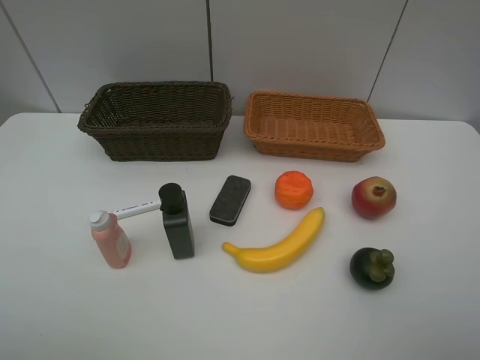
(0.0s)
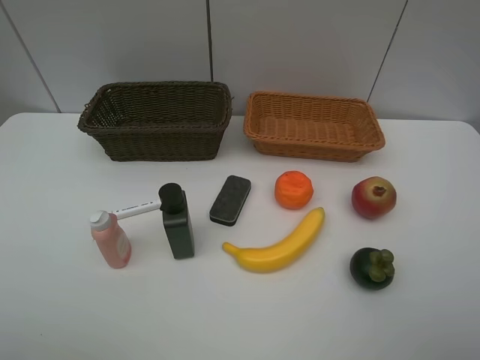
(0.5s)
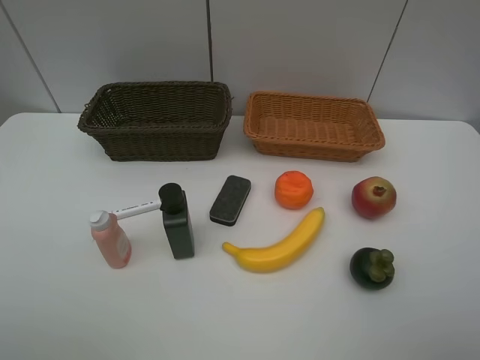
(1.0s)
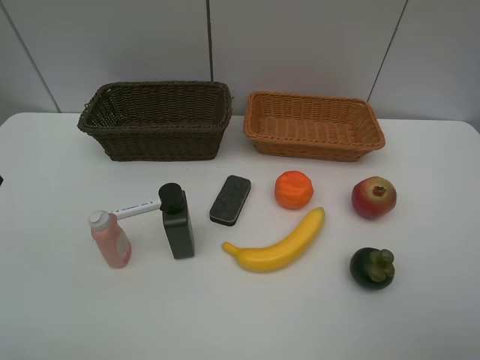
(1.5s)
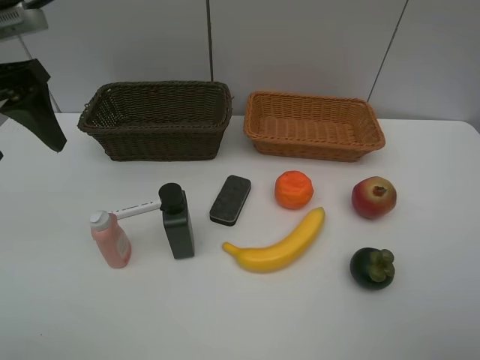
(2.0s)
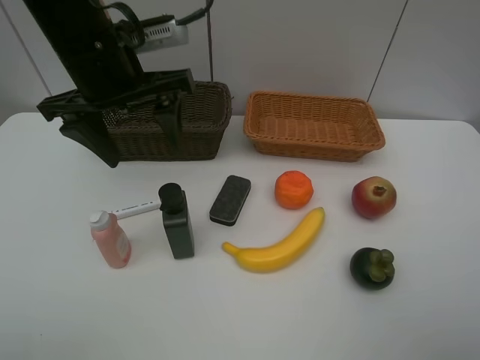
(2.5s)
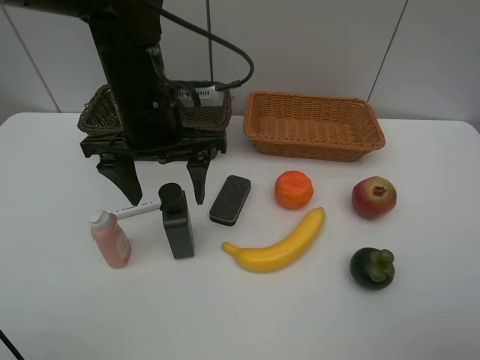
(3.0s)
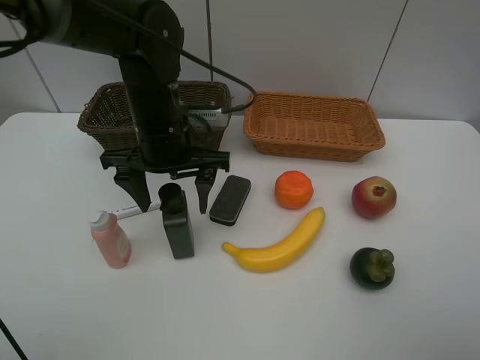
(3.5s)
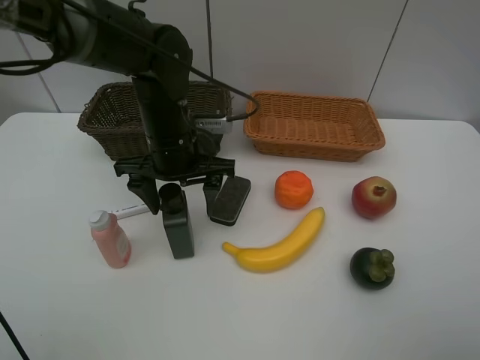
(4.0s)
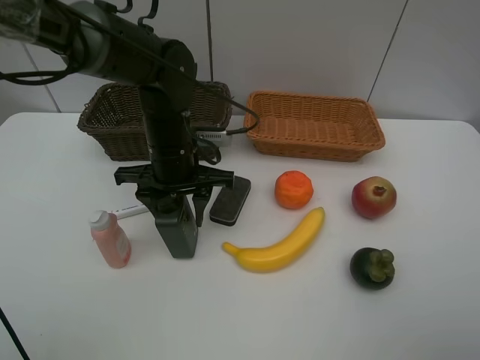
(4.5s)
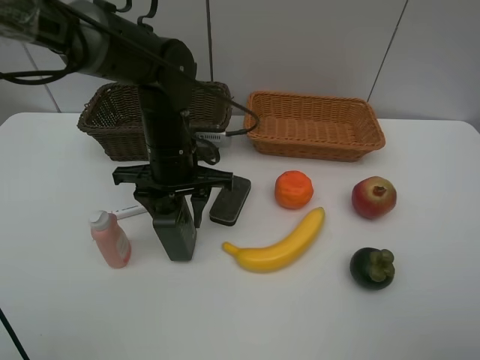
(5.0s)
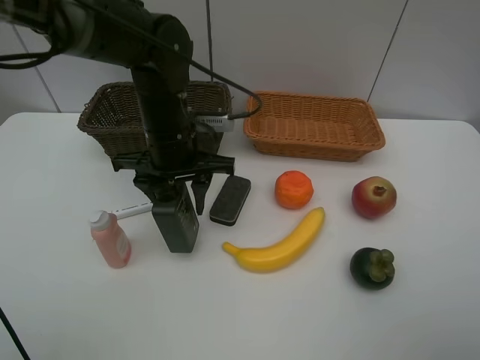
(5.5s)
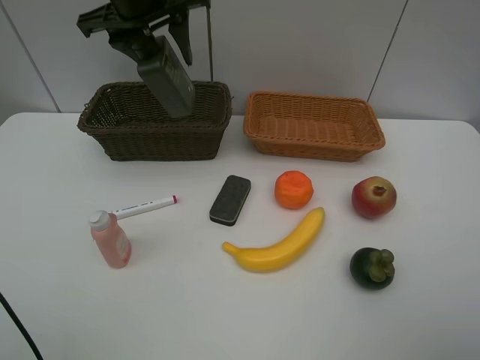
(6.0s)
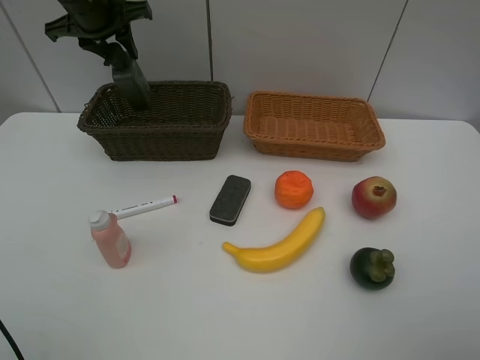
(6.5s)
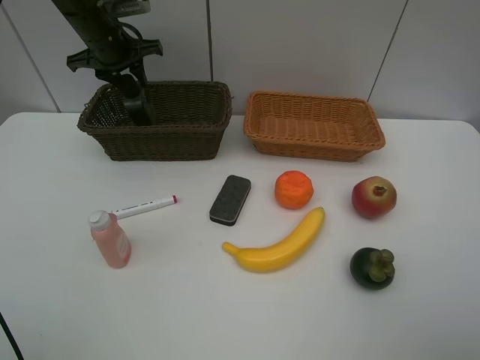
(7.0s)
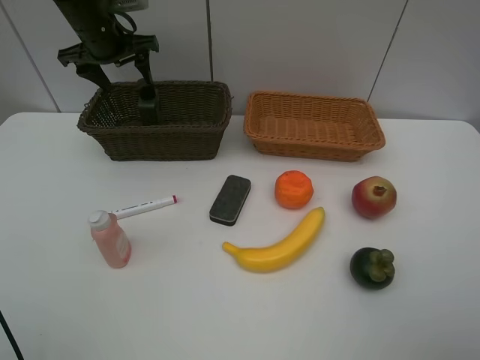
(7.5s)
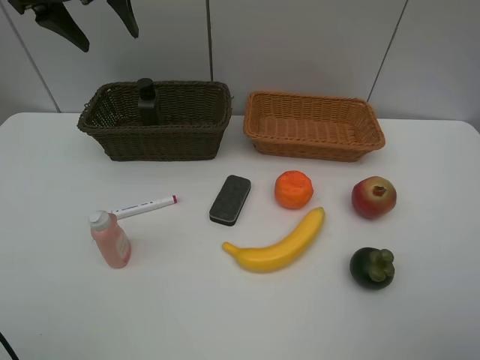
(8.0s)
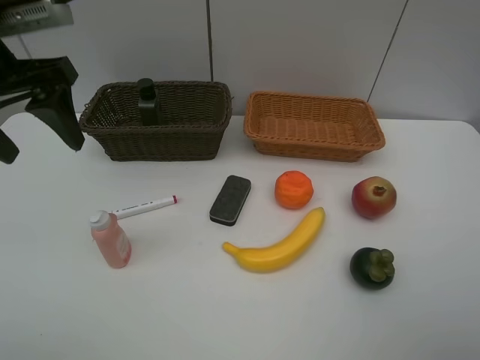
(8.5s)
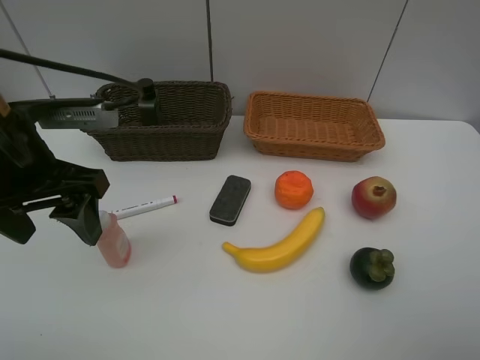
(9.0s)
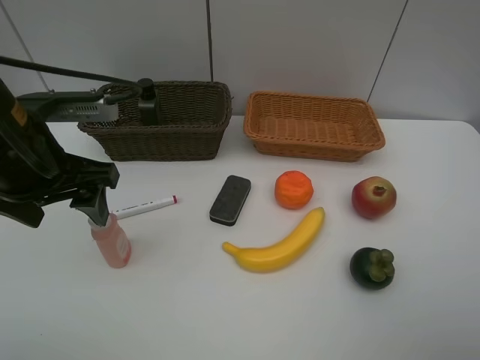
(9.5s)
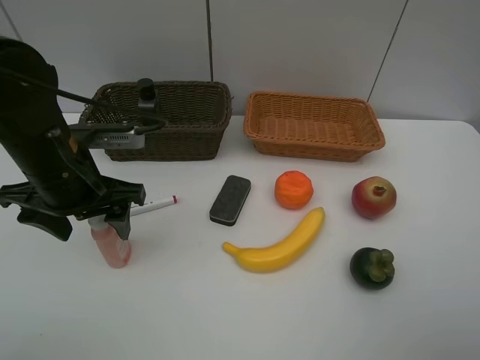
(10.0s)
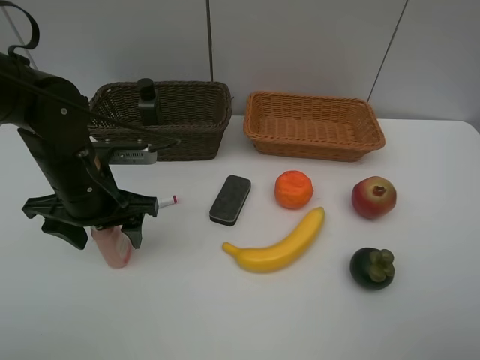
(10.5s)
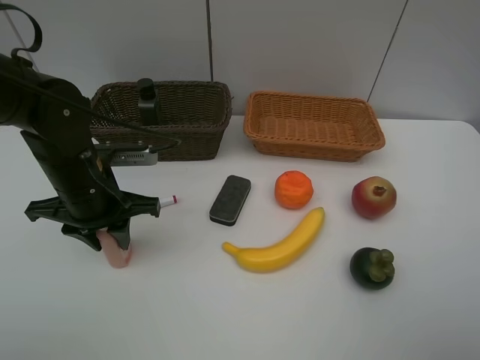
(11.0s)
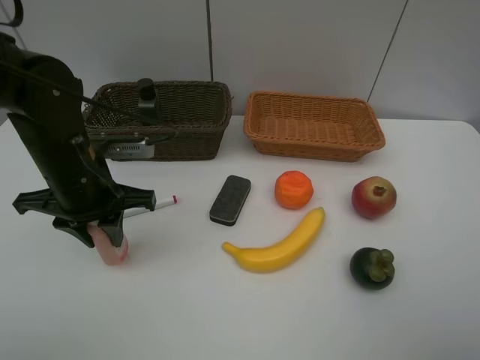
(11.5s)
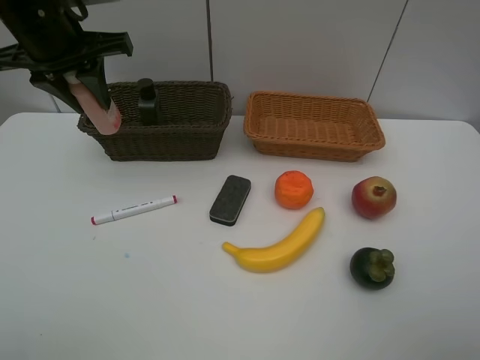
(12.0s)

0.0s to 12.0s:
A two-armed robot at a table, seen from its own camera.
Task of the whole recording: Place multiple objects separately in different baskets.
Step, 0.0s to 5.5s: Pick up the hard facial cleanser with left gripper.
Step, 6.0s to 7.5s: Place the hard facial cleanser in the dark basket with left gripper.
Step, 8.0s to 11.5s: Pick up the laundry detergent with left gripper.
0.0s to 2.0s: The left gripper shifts about 30 cm forward.
2.0s to 4.0s: The left gripper goes about 25 cm to the right and downward.
4.0s to 6.0s: The left gripper goes about 20 cm upward and forward.
6.0s to 8.0s: The left gripper heads to the left, covering some 10 cm, and reaches roughly 10 cm downward, then returns.
8.0s to 10.0s: The left gripper is displaced backward and downward by approximately 25 cm.
10.0s to 12.0s: The left gripper is displaced upward and forward by about 15 cm, and closes up.

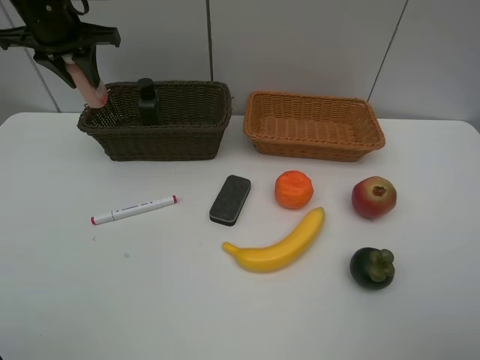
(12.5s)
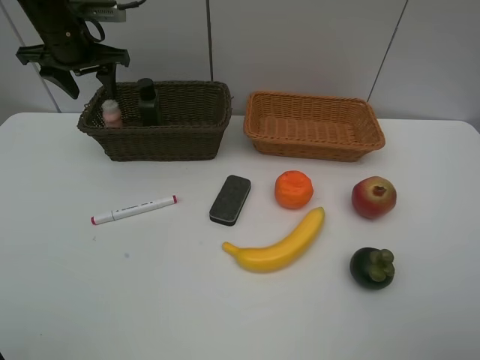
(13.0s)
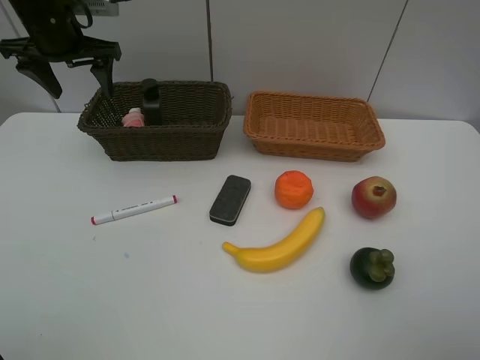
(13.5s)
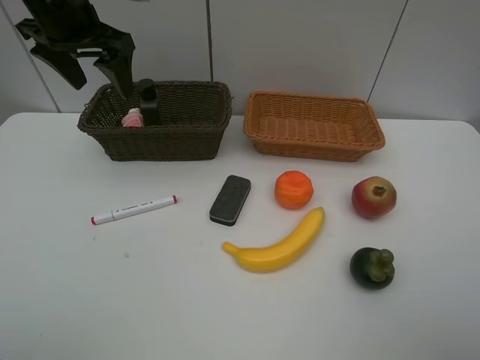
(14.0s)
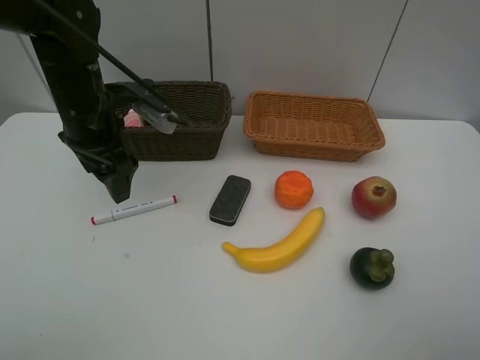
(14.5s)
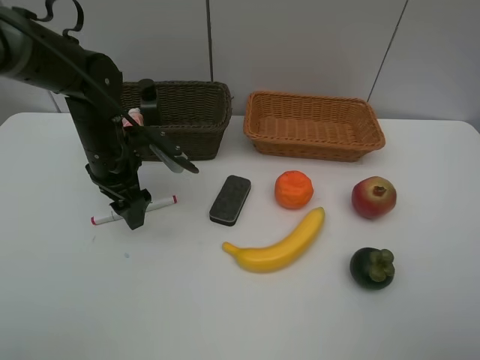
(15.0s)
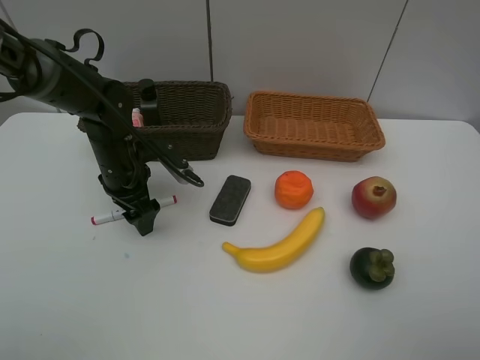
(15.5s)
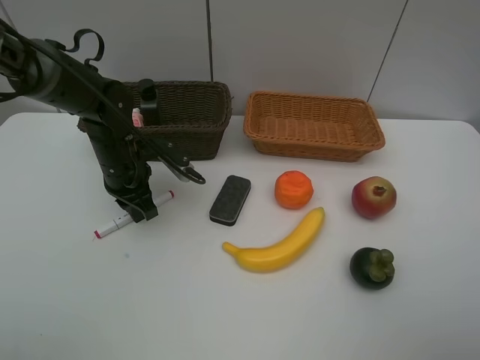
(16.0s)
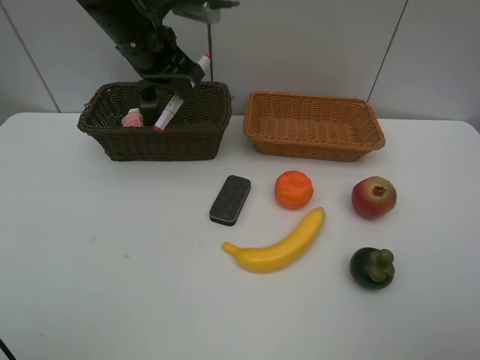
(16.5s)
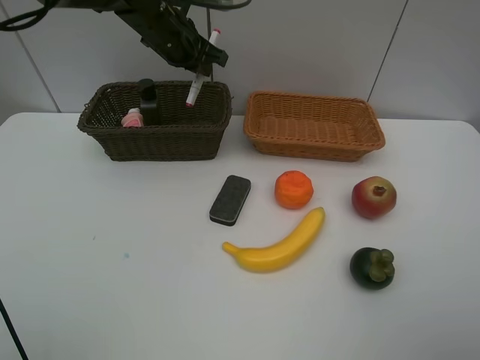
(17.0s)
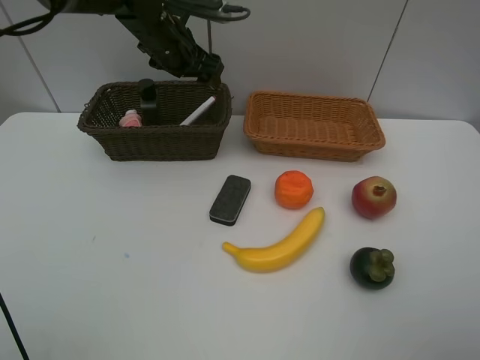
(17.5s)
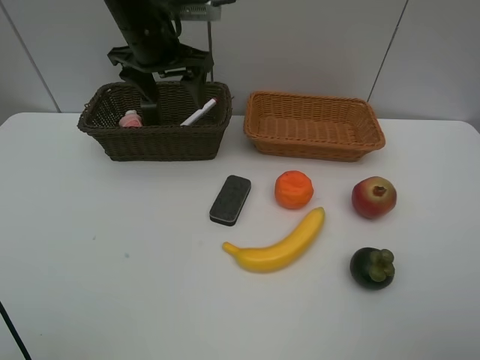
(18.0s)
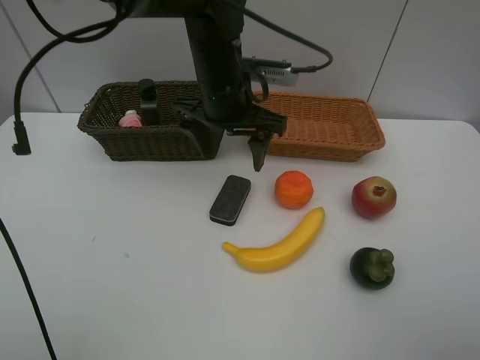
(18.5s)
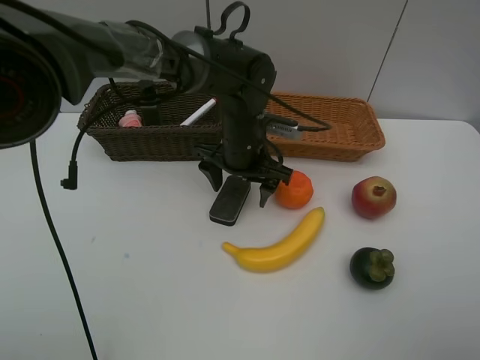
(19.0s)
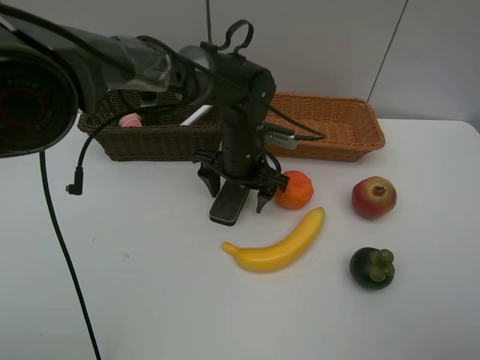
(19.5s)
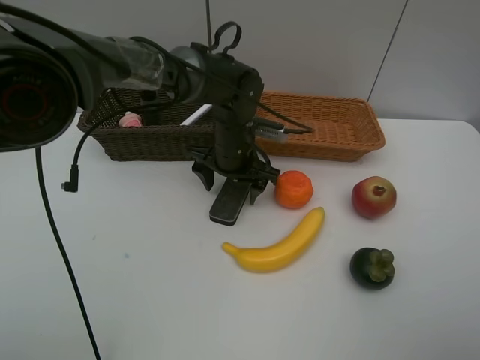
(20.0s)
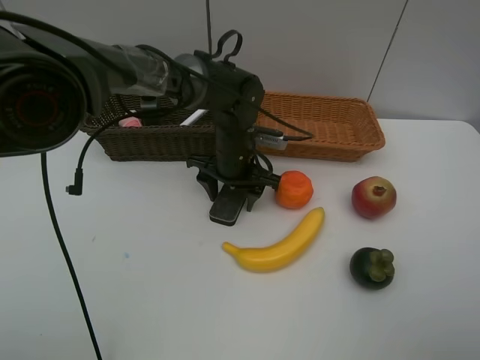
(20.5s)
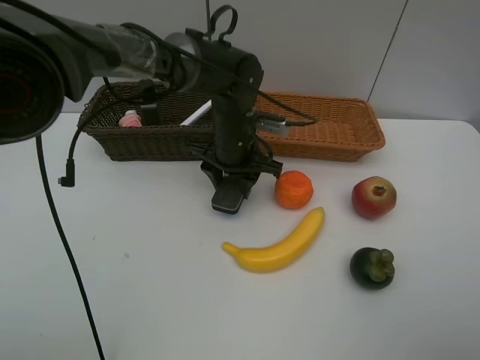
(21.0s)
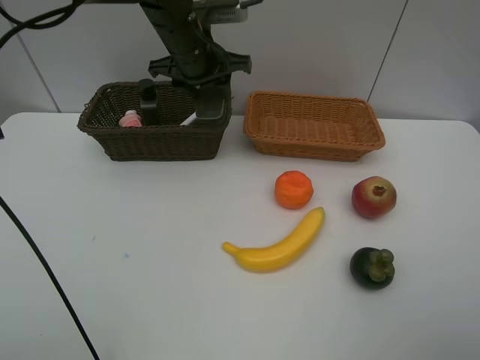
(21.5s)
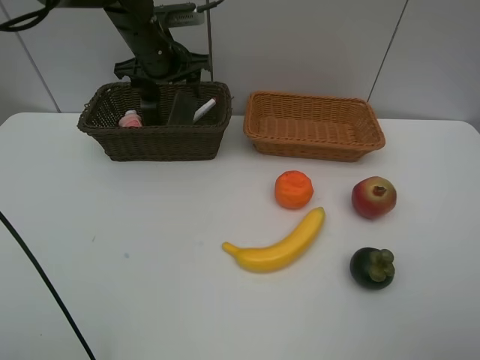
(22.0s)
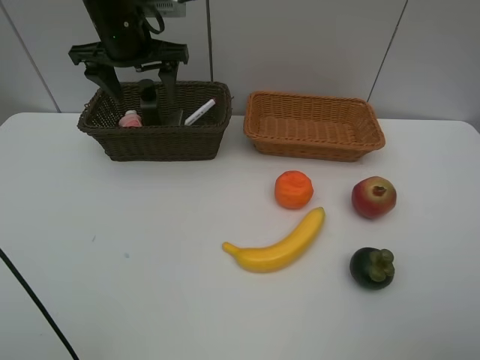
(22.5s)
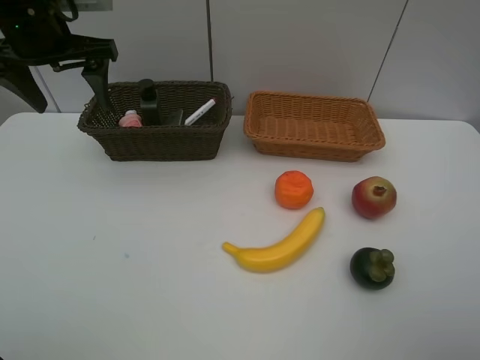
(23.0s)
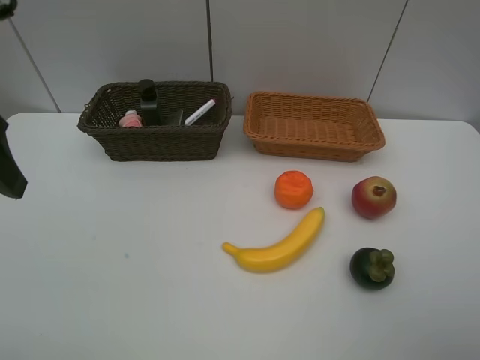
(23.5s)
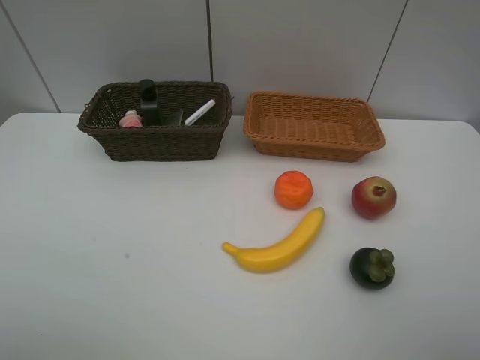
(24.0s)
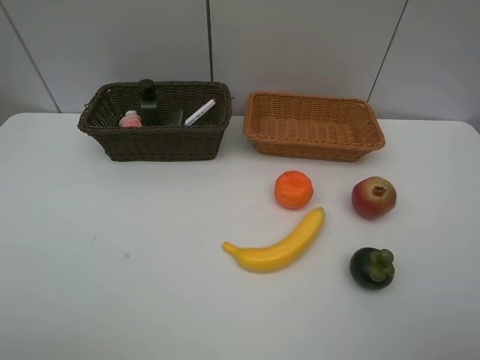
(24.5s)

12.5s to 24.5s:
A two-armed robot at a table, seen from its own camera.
Task of the whole recording: Place multiple objects separately in different baskets.
Step, 13.5s to 16.0s: Pick up the red marker with left gripper.
Step, 16.5s to 17.0s: Place the red marker in the dark basket with left gripper.
Step, 17.5s to 21.0s: Pick up blackboard eraser with left gripper.
Step, 21.5s to 22.0s: Place the blackboard eraser in the dark basket with left gripper.
12.5s to 14.5s: The left gripper is displaced backward, downward and to the right by roughly 15 cm, and opens its fingers.
14.5s to 16.5s: The left gripper moves forward, upward and to the right, approximately 10 cm, and closes.
16.5s to 18.5s: The left gripper heads to the right, backward and downward, covering roughly 15 cm, and opens.
18.5s to 20.5s: The left gripper heads downward, covering roughly 10 cm.
20.5s to 22.5s: The left gripper heads upward and to the left, covering some 25 cm.
22.5s to 24.5s: The left gripper heads backward, covering about 40 cm.

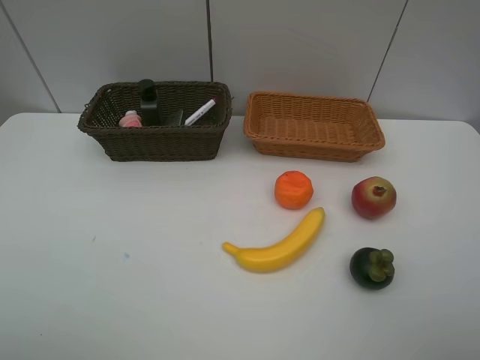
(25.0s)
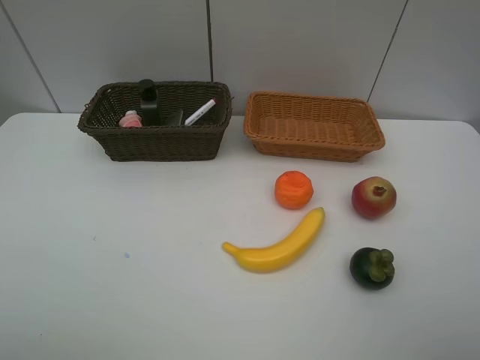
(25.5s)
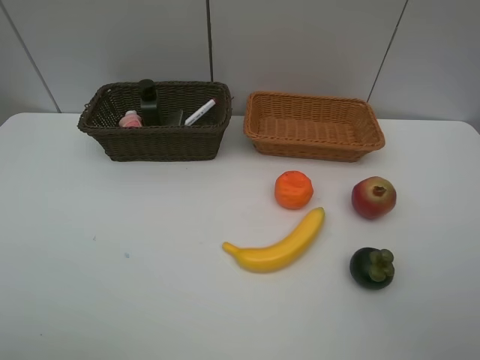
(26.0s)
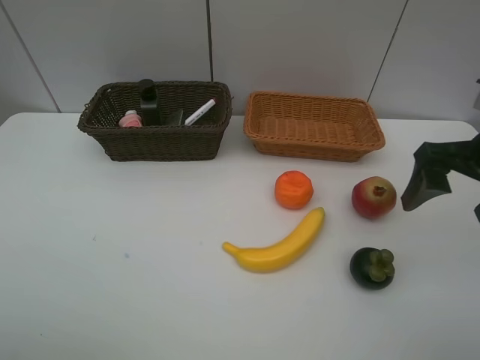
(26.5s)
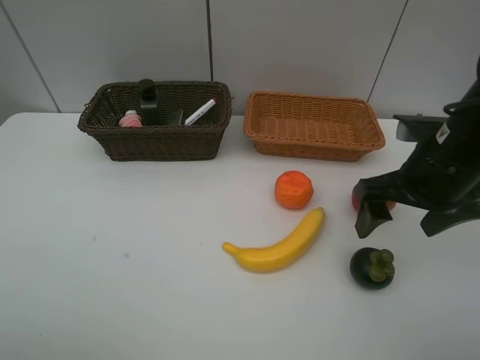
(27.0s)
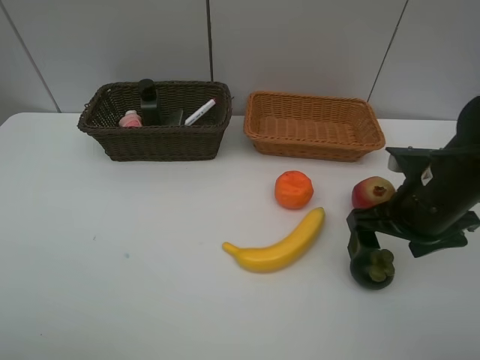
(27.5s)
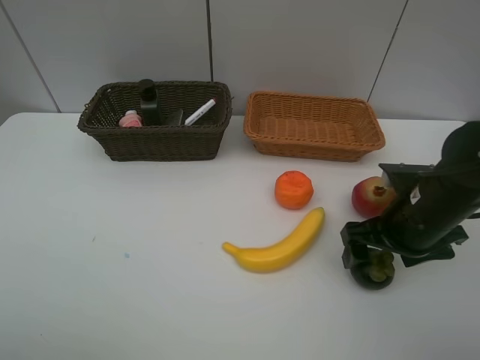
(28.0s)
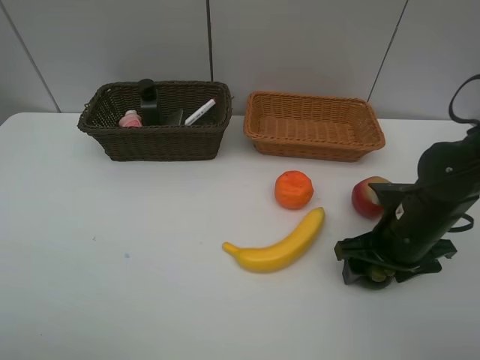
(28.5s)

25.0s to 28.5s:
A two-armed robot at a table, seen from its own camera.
Task of the whole recording: Place multiple objects separately in different baskets.
25.0s to 27.0s: The right gripper goes roughly 25 cm forward.
27.0s to 28.5s: The right gripper moves downward, approximately 10 cm, and closes.
